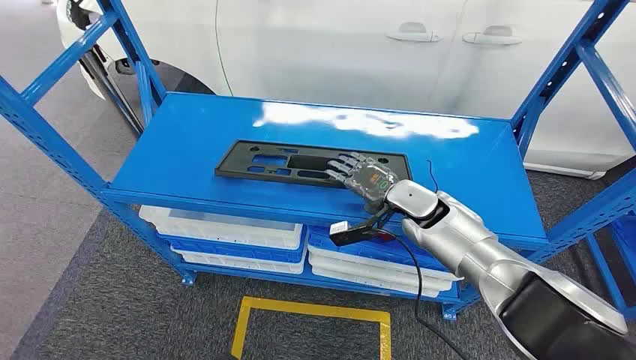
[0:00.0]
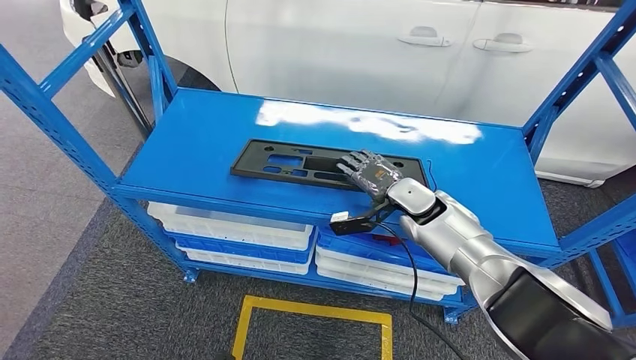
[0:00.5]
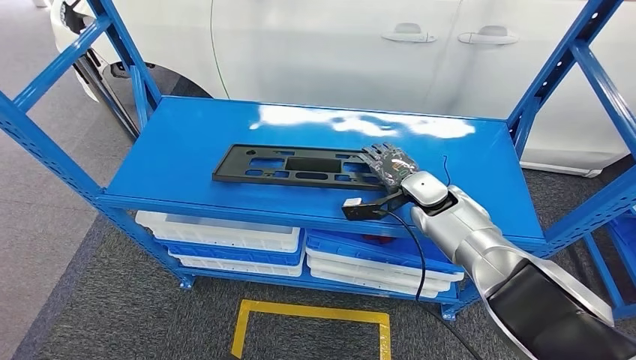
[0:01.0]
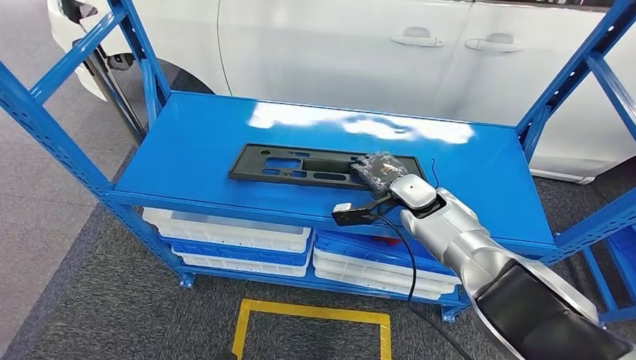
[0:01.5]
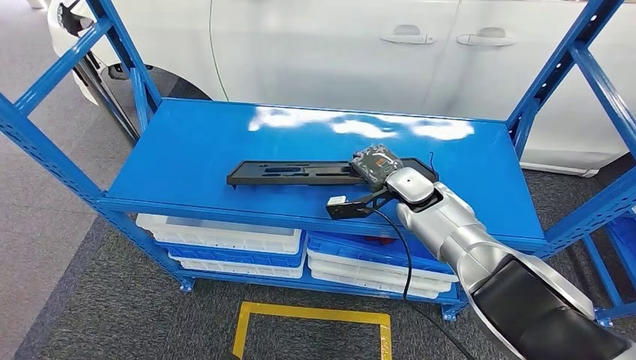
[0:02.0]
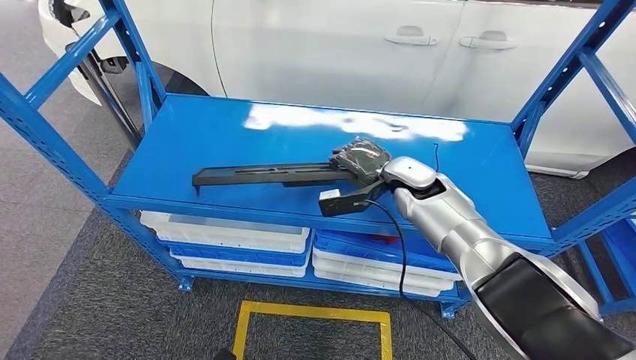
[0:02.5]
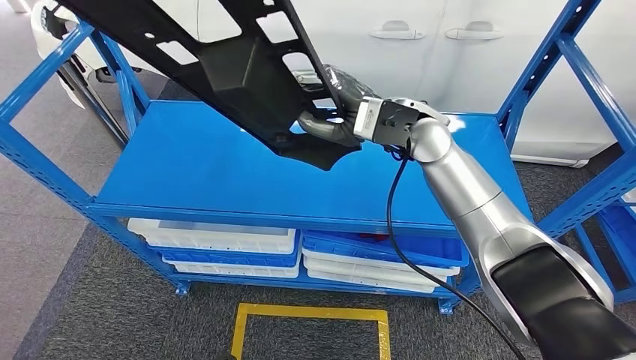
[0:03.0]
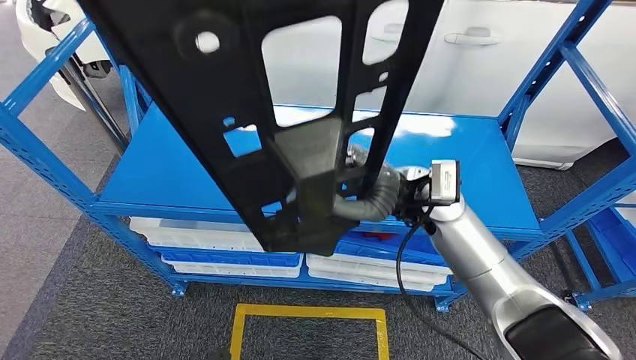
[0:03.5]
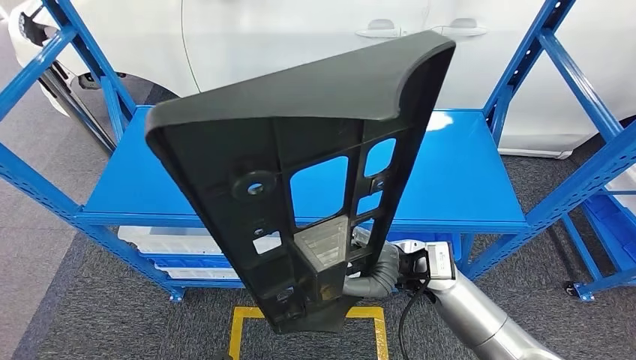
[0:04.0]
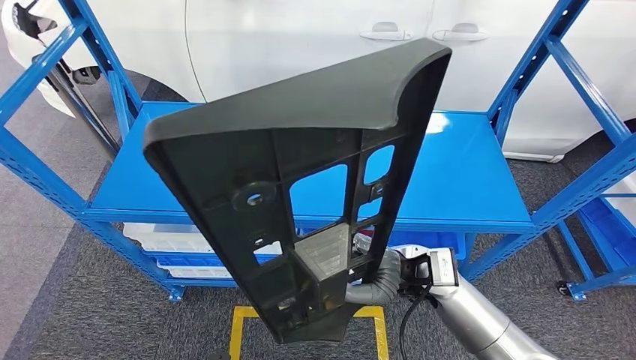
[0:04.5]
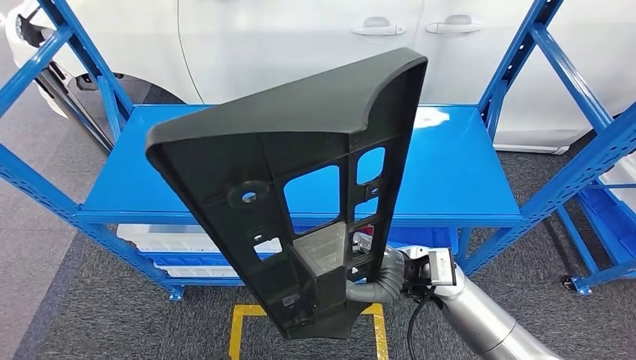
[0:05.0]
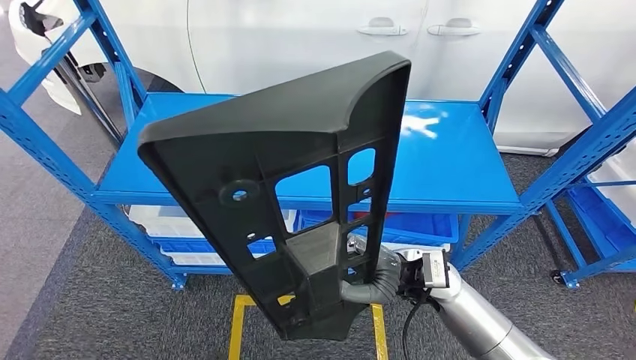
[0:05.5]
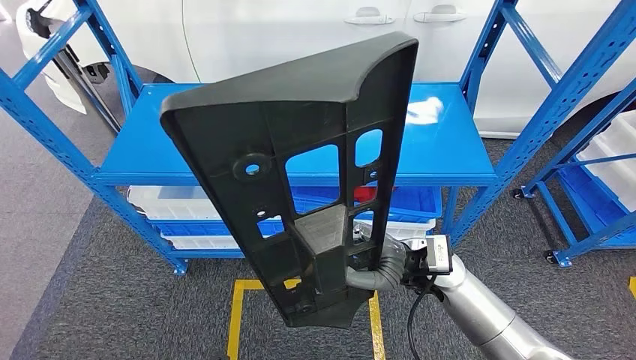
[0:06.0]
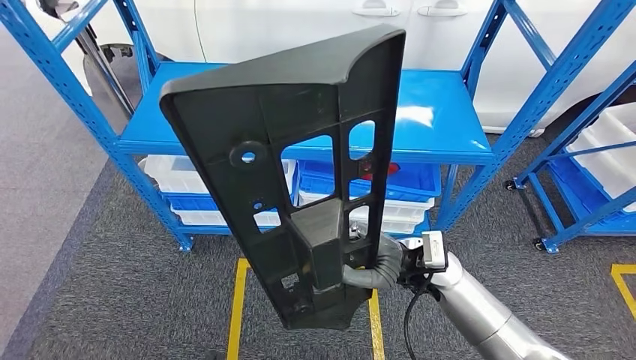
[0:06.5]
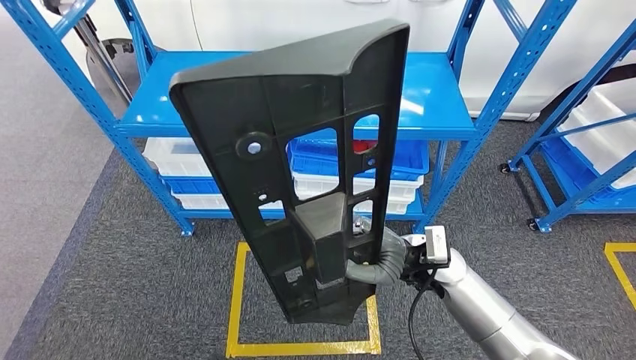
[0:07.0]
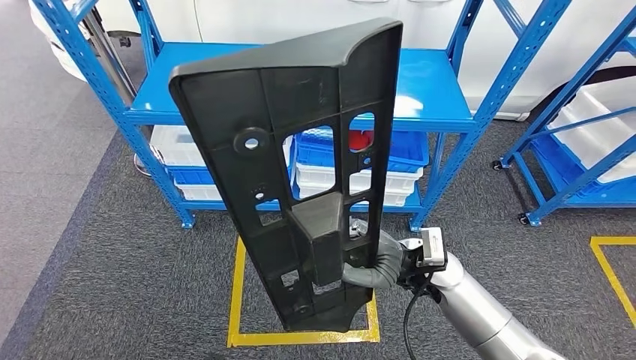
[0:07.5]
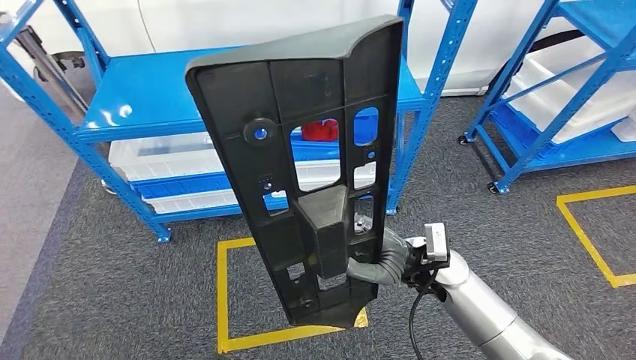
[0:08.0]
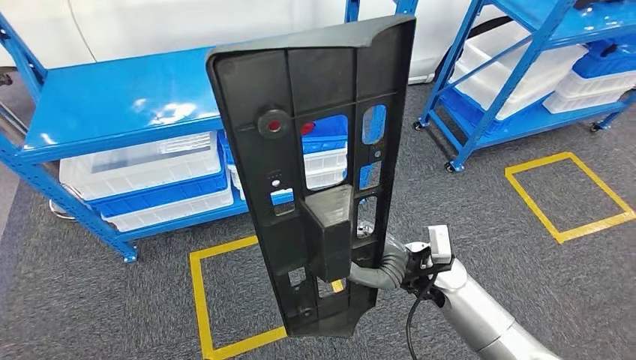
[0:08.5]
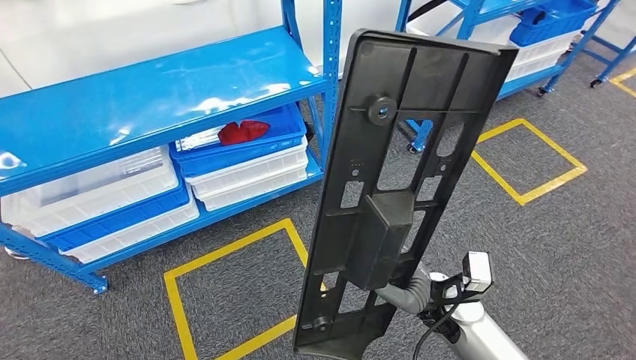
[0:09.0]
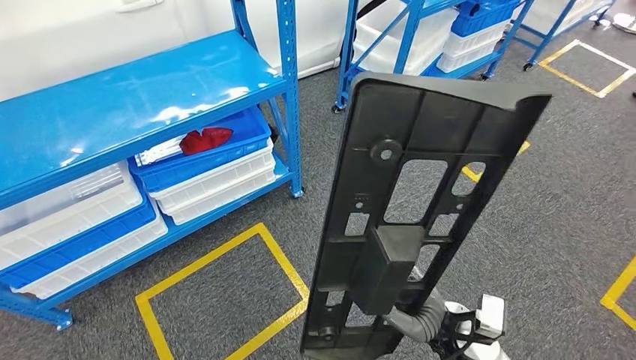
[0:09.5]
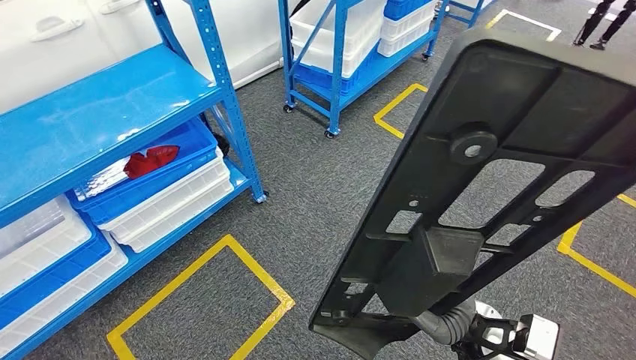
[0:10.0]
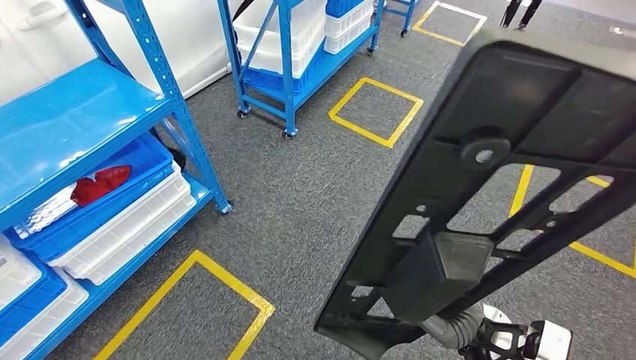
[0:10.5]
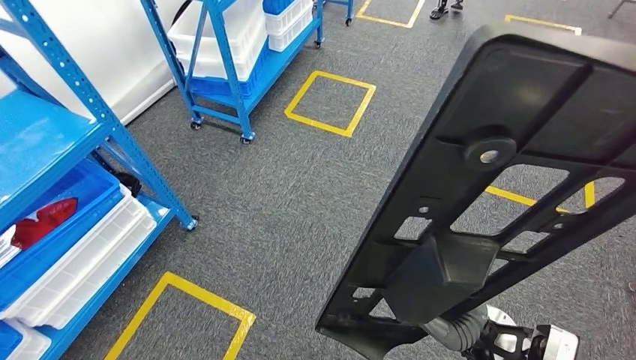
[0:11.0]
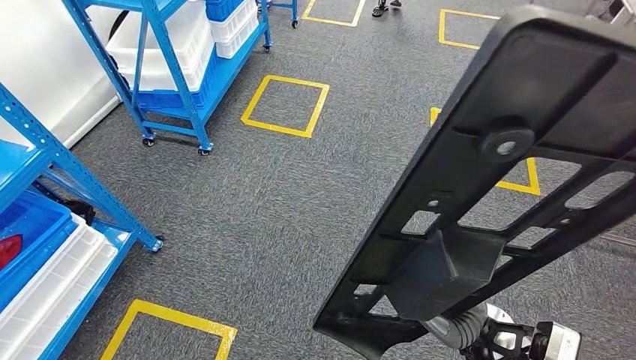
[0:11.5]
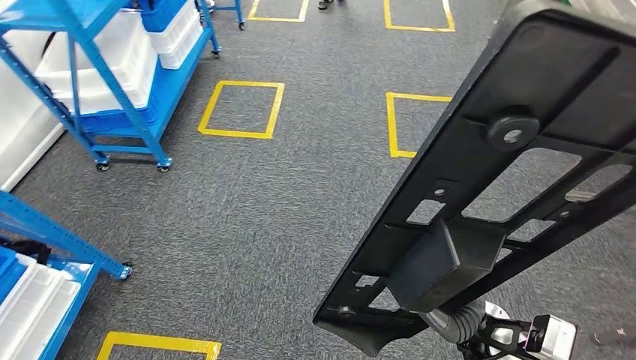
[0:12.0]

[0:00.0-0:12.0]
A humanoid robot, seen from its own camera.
Step, 0:00.0 to 0:04.5: Pick up the large material from the shelf.

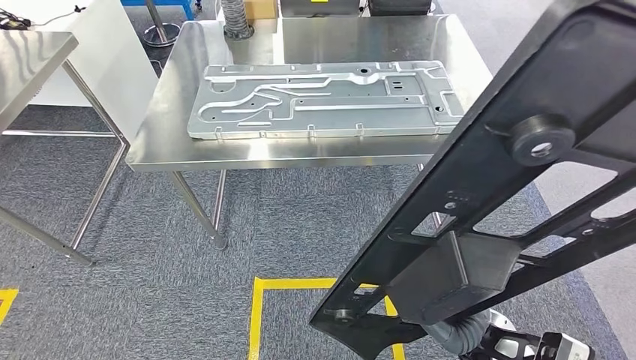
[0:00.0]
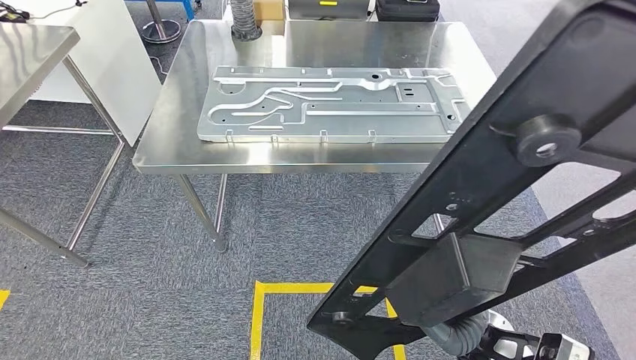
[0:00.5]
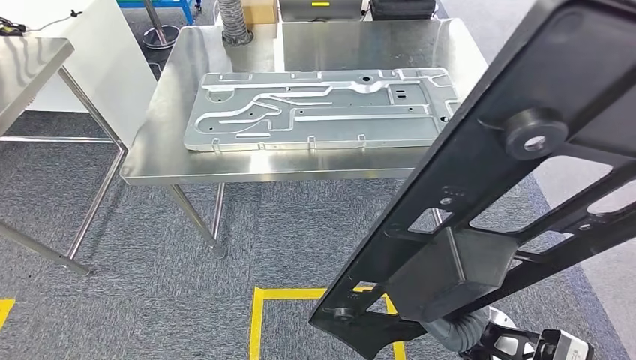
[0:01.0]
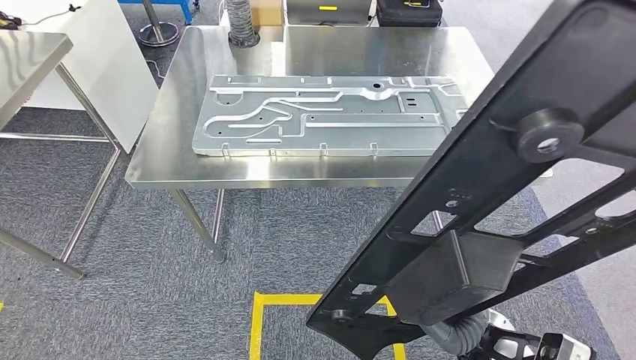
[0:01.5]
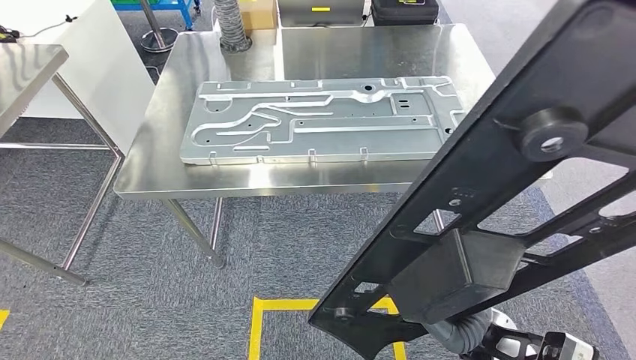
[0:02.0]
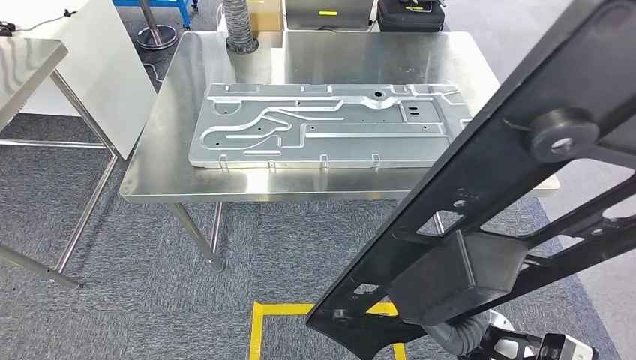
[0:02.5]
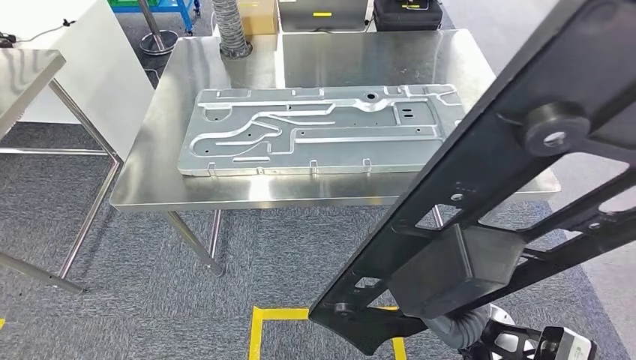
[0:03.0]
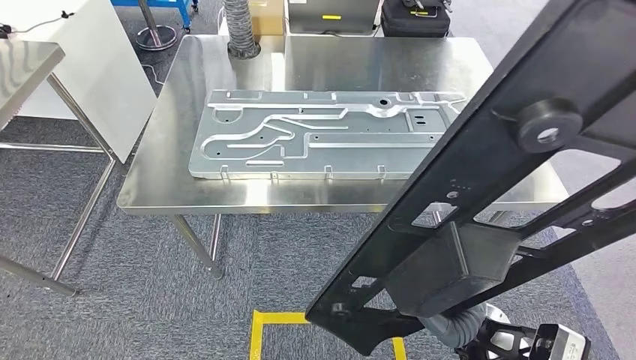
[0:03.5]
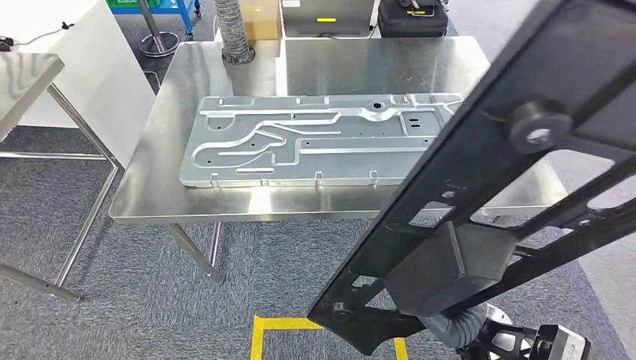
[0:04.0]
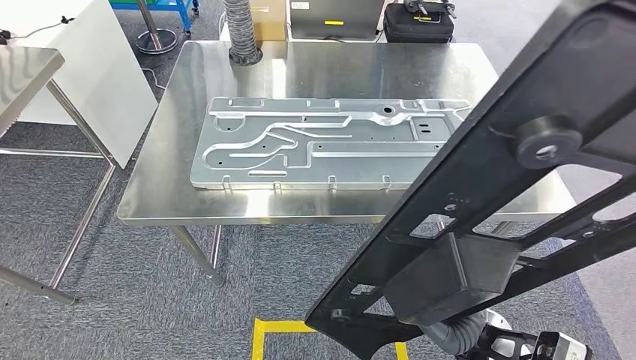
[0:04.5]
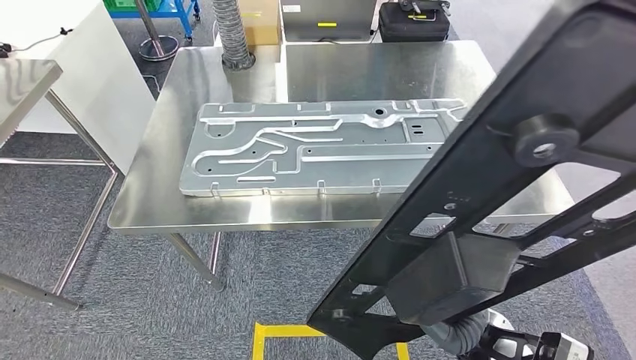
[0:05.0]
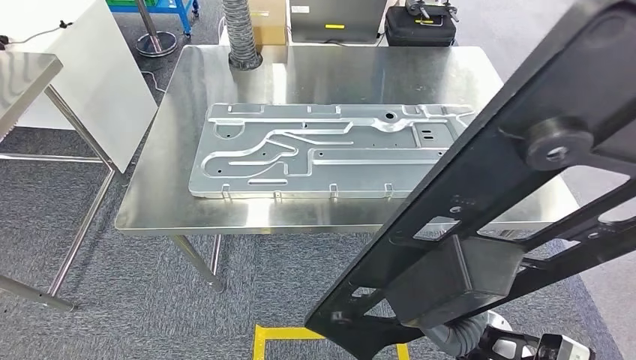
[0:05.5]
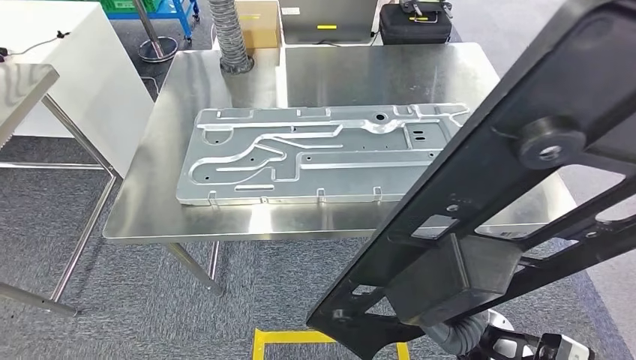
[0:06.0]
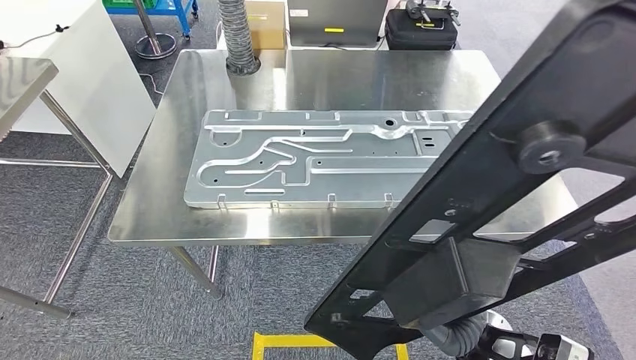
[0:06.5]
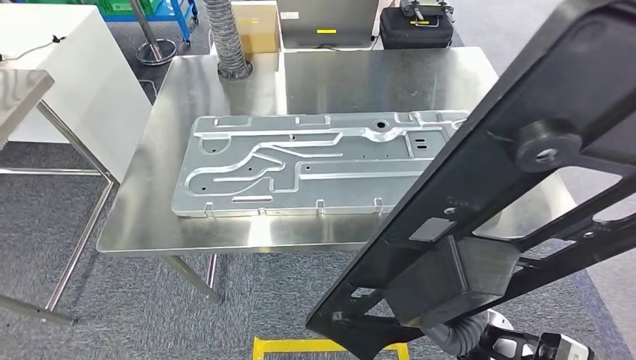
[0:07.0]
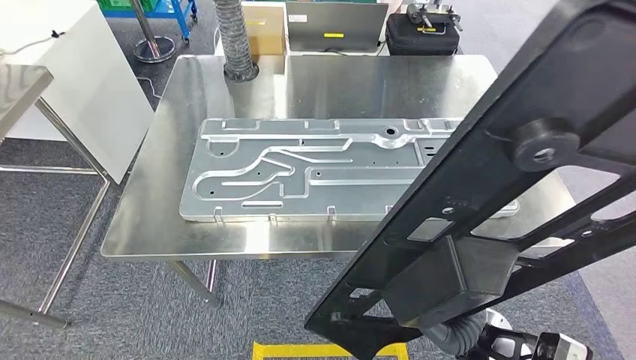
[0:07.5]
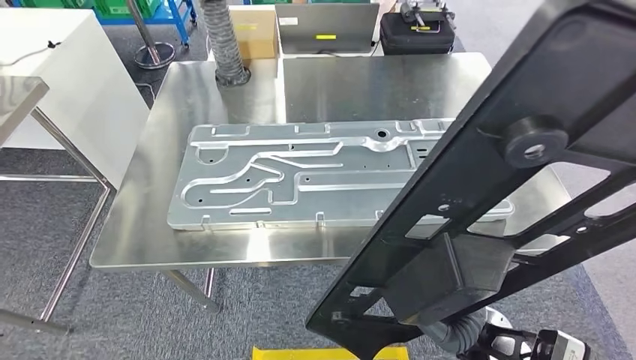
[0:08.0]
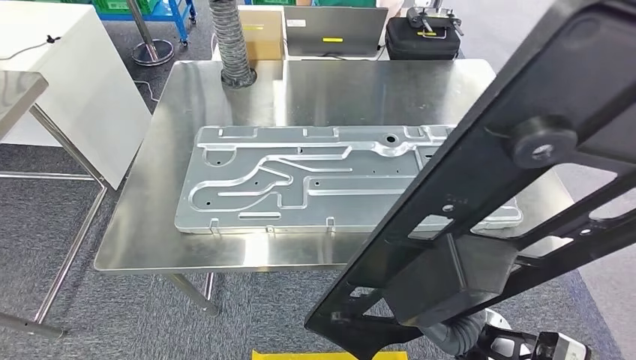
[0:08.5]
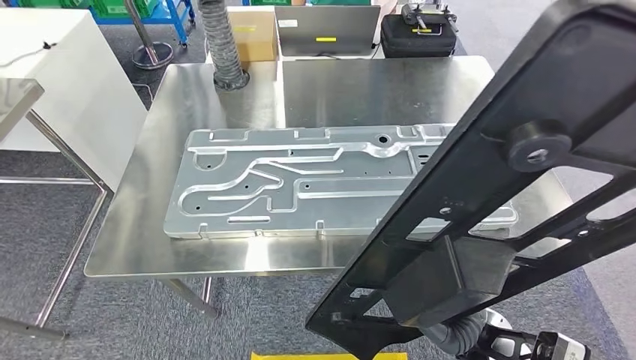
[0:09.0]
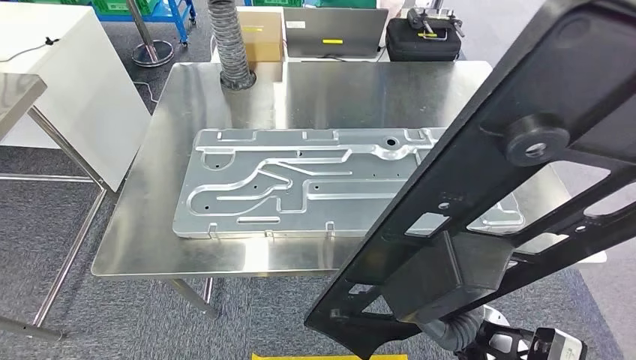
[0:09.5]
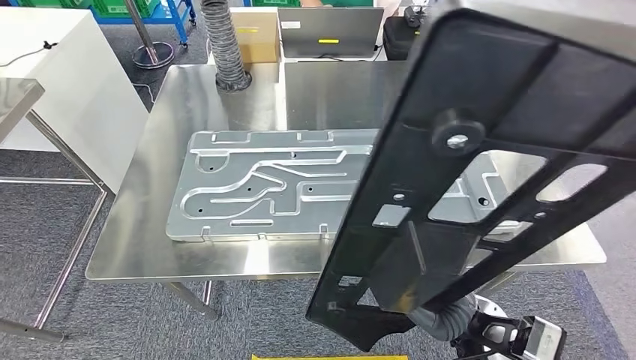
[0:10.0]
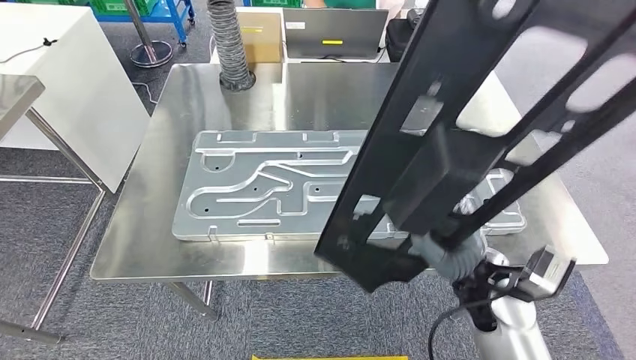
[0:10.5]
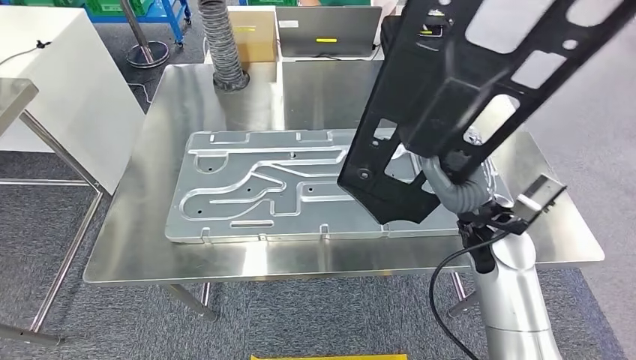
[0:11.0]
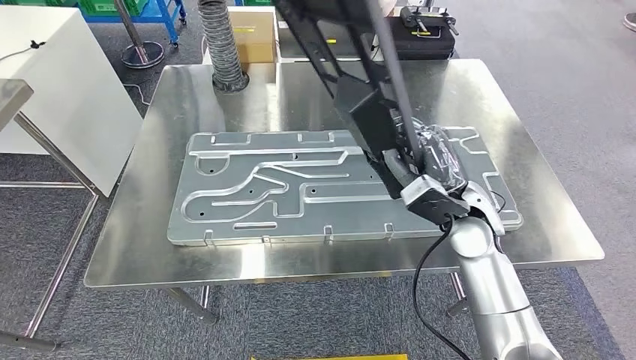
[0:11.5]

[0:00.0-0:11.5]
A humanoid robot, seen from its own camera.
Step, 0:00.0 to 0:03.5: Move the large material to the workbench.
